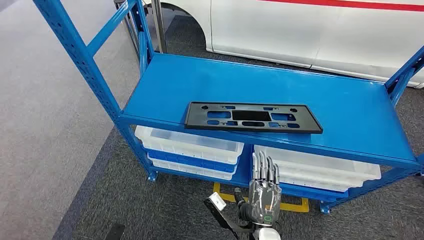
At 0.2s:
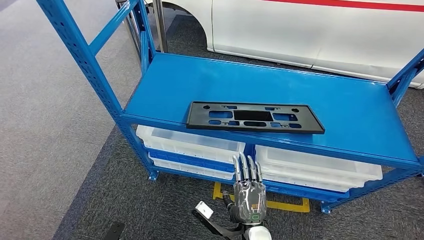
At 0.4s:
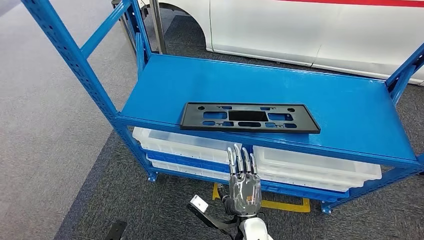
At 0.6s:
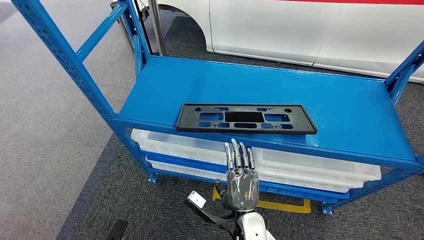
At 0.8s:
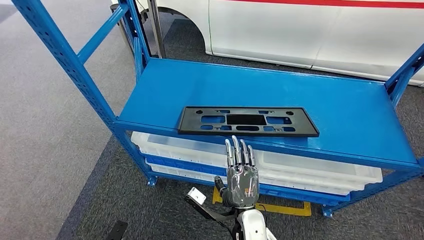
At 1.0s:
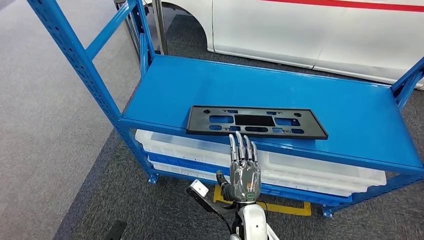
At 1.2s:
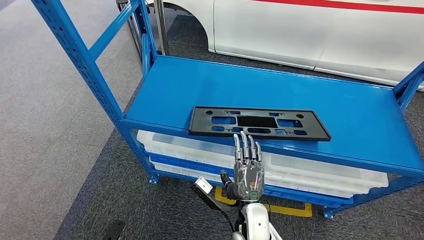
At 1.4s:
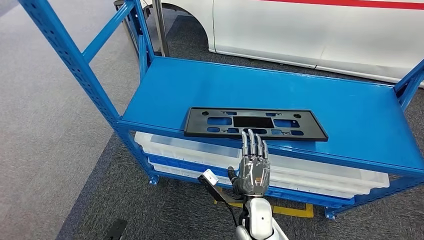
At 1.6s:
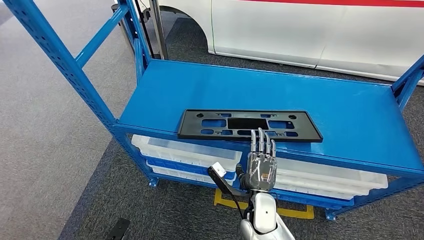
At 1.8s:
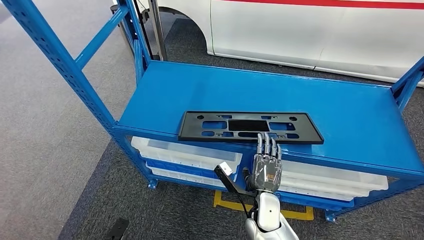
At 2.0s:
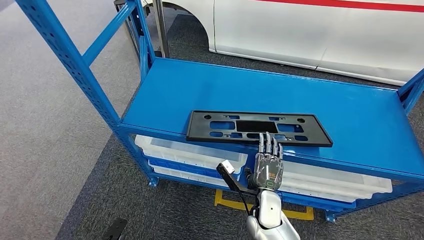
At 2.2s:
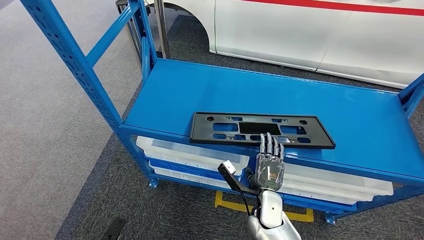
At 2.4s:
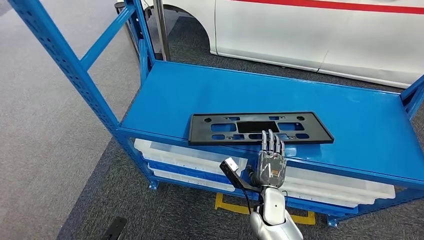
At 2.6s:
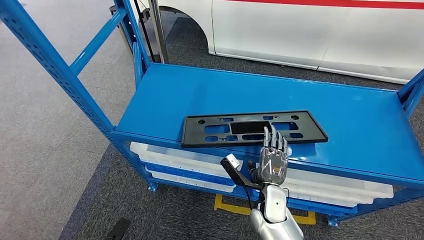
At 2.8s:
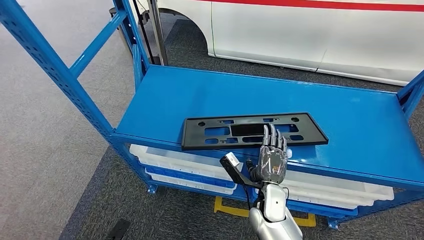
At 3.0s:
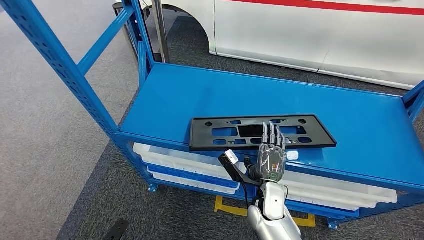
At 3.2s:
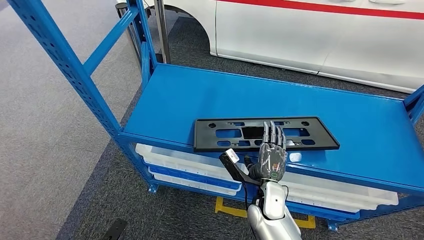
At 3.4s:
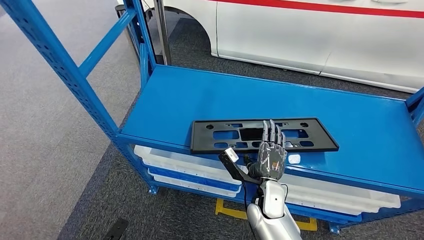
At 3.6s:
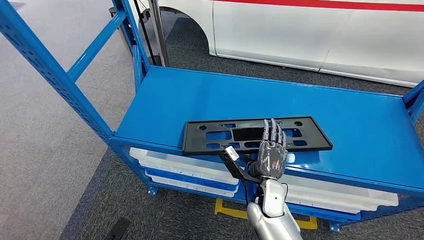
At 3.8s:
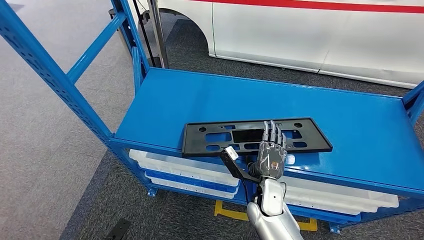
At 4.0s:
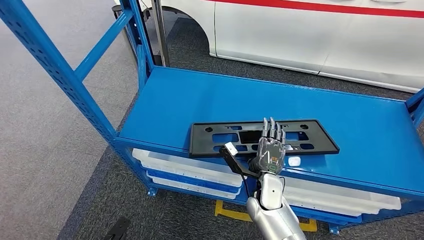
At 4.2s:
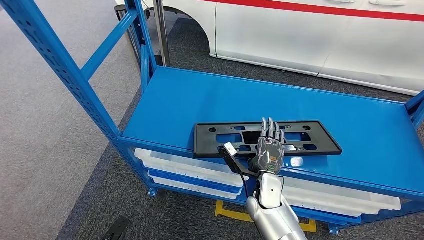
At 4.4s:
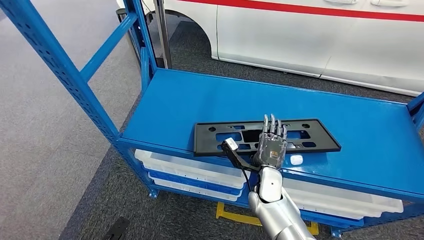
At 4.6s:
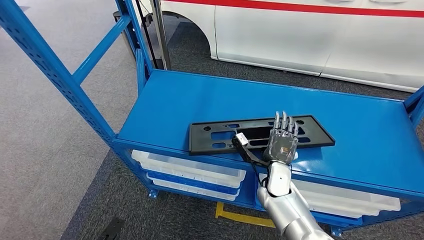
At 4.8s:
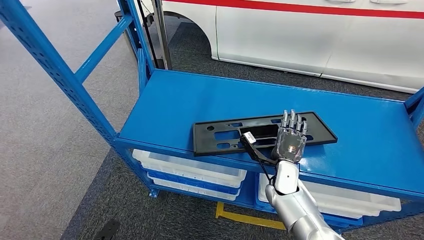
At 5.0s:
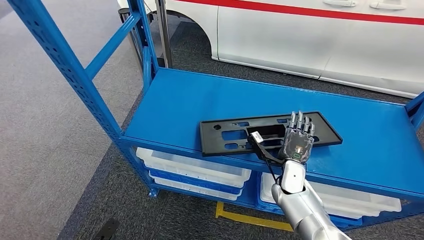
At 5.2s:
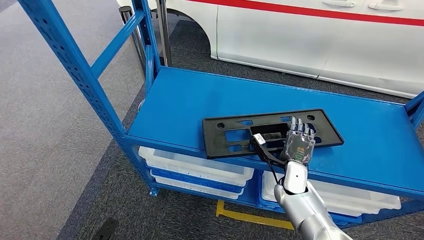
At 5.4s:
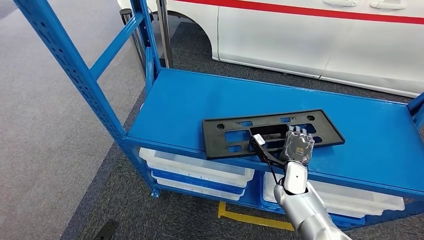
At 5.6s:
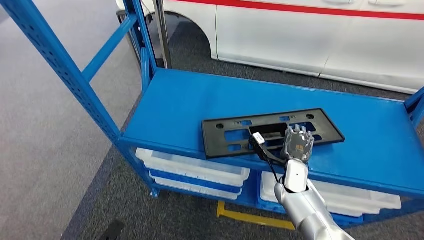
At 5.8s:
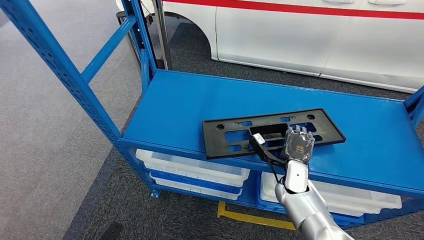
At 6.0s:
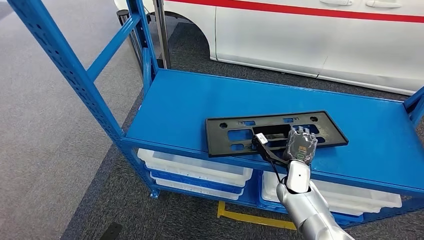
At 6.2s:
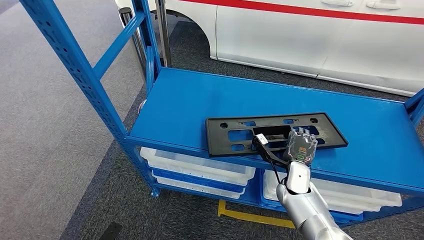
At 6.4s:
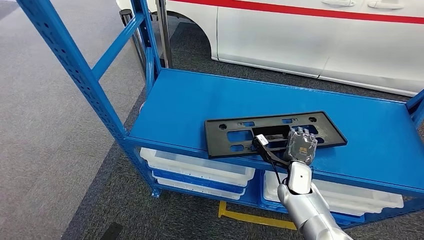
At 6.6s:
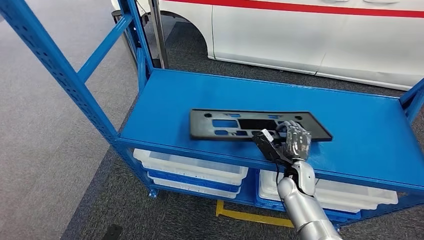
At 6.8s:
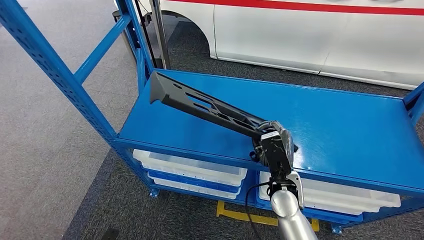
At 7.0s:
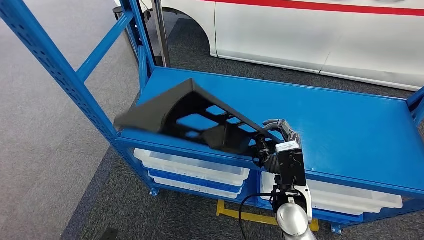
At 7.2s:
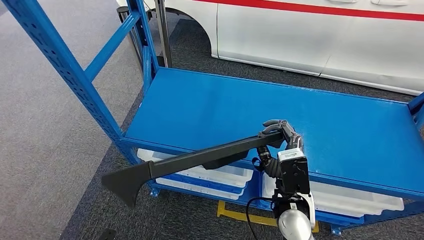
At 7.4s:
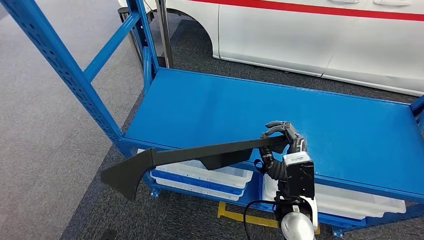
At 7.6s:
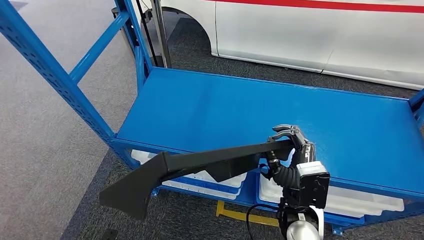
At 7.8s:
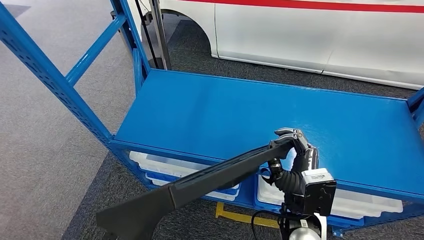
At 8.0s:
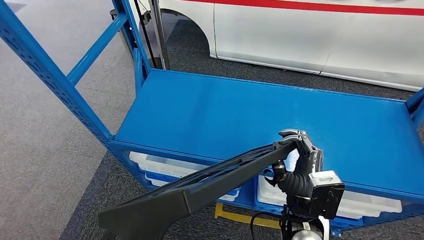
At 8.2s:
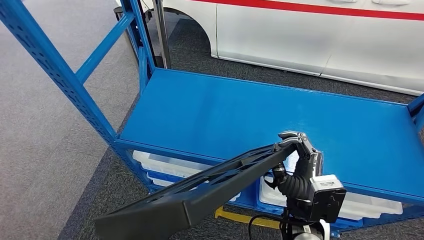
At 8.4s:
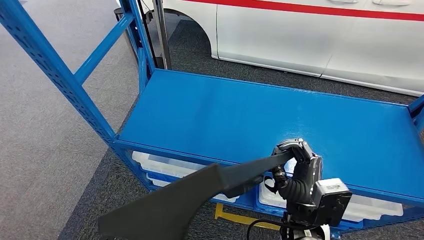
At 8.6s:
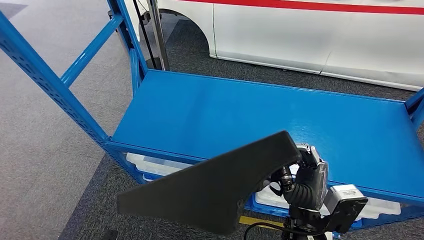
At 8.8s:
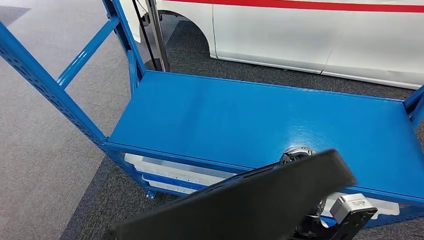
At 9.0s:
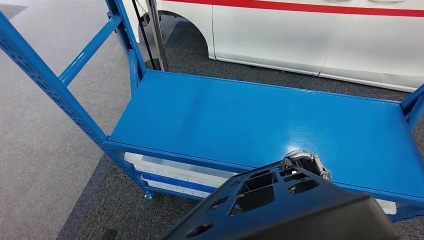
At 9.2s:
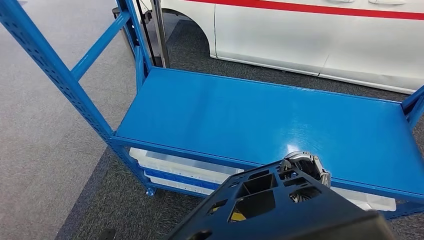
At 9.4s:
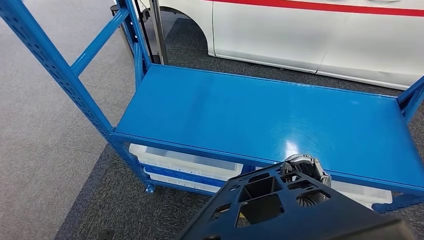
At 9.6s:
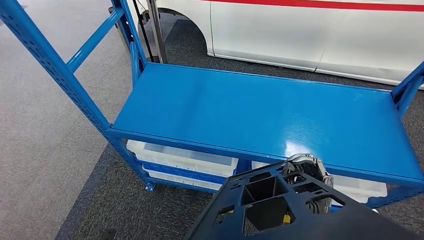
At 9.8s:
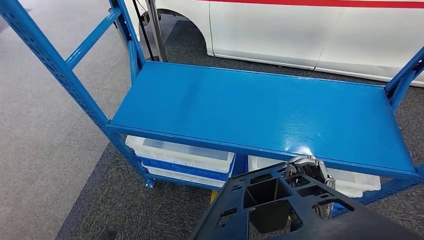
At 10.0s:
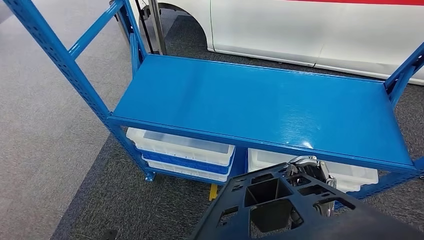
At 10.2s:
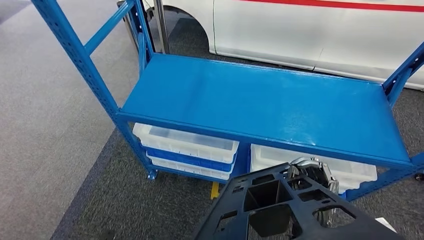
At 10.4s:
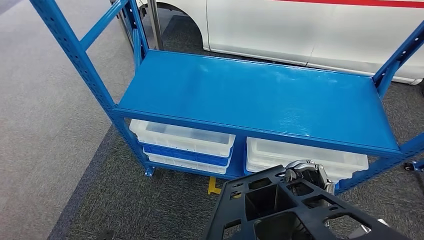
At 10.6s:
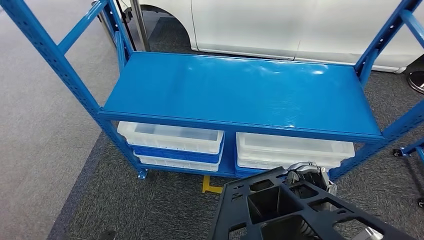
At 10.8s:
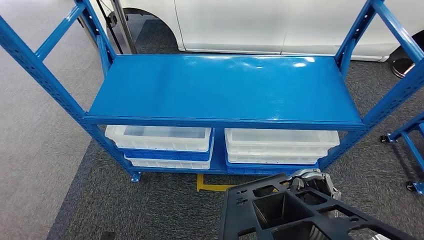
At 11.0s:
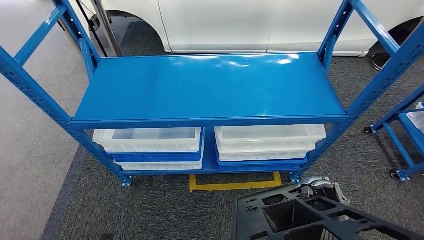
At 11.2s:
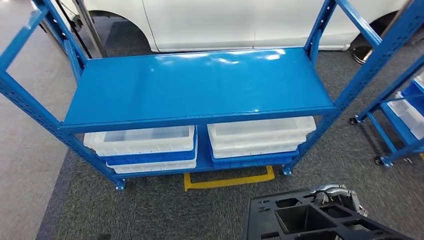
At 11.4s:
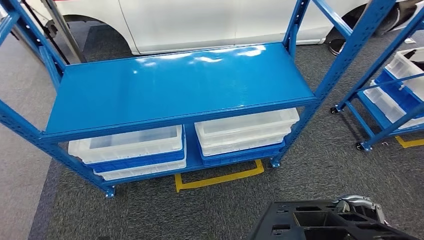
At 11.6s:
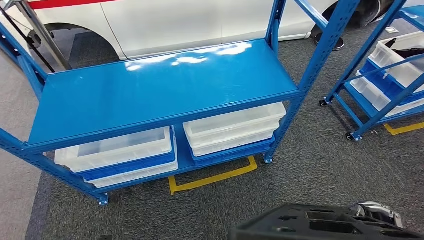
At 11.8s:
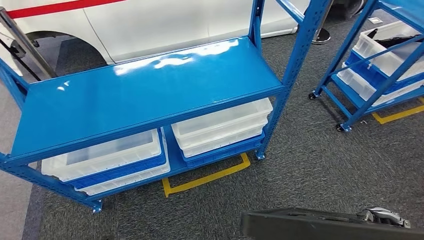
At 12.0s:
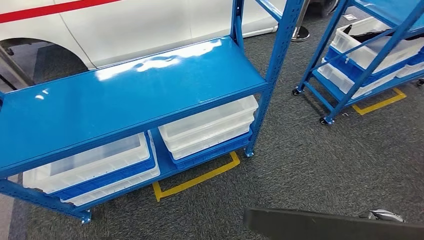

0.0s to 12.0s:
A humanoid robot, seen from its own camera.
Step, 0.0s to 8.0s: Pick up the large material from the shelf.

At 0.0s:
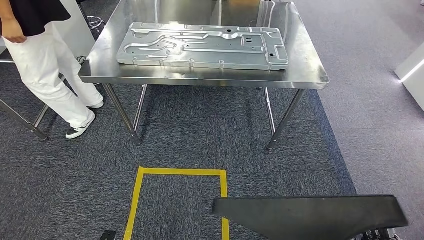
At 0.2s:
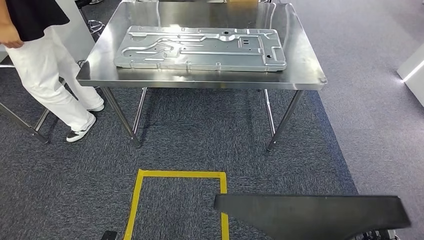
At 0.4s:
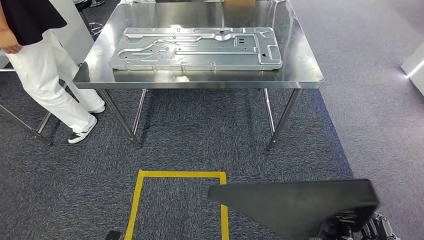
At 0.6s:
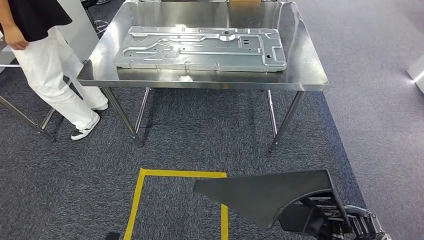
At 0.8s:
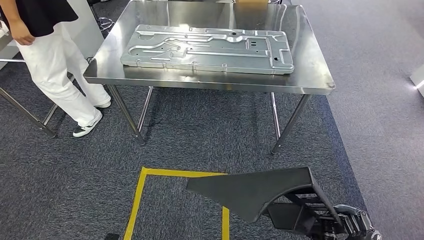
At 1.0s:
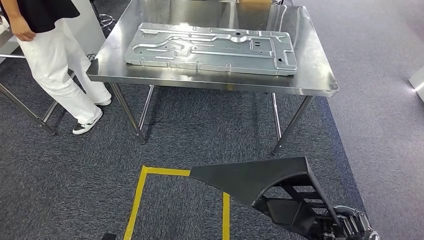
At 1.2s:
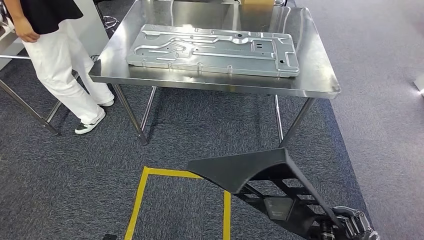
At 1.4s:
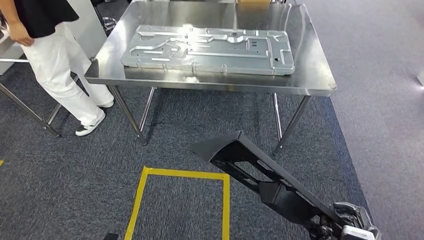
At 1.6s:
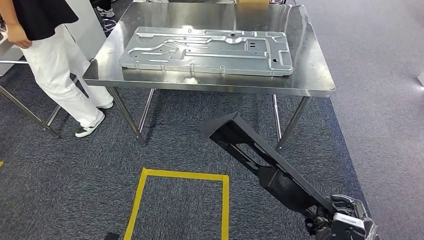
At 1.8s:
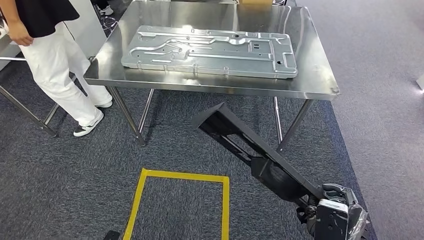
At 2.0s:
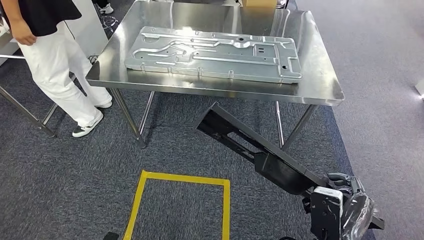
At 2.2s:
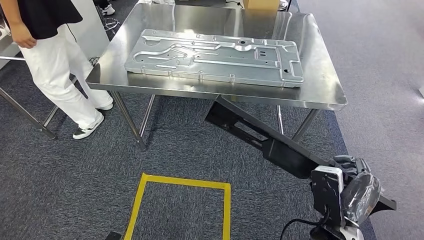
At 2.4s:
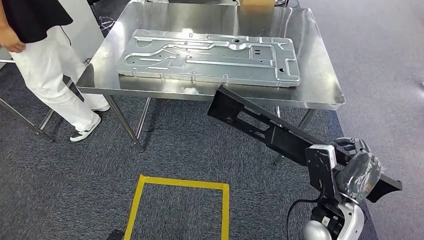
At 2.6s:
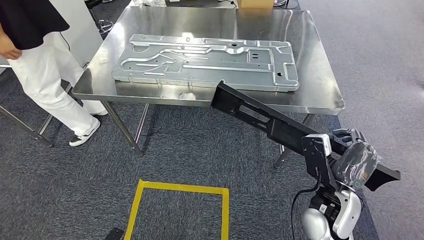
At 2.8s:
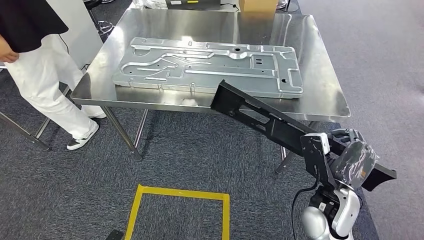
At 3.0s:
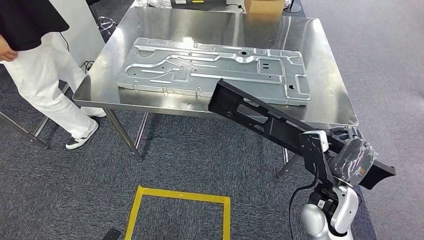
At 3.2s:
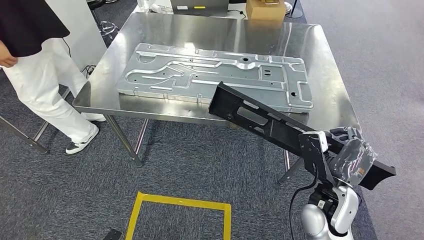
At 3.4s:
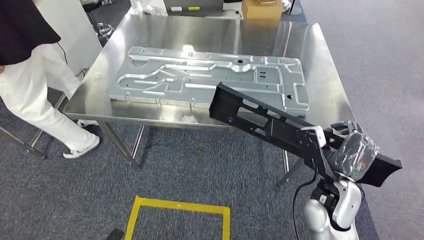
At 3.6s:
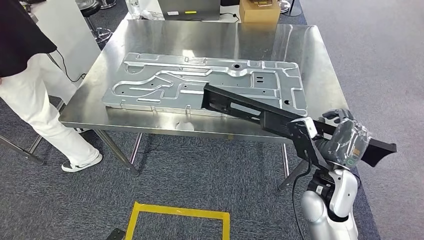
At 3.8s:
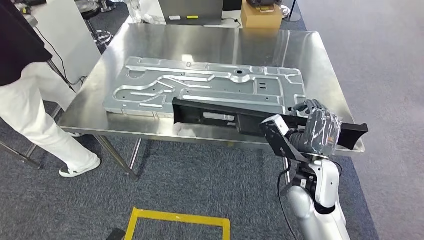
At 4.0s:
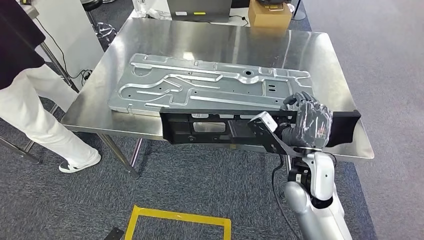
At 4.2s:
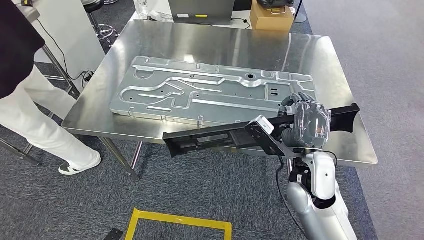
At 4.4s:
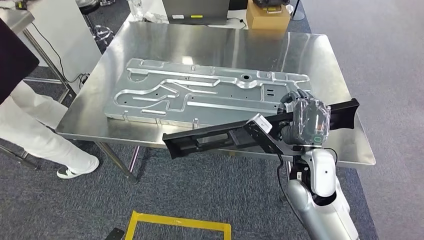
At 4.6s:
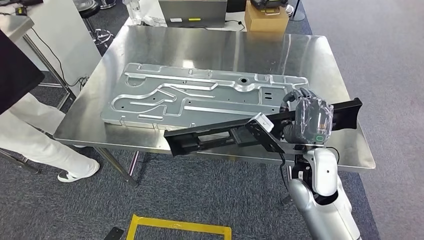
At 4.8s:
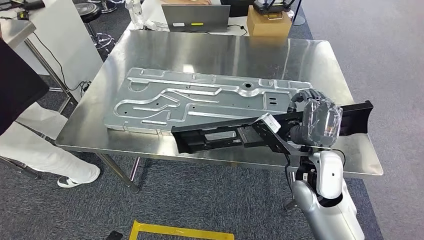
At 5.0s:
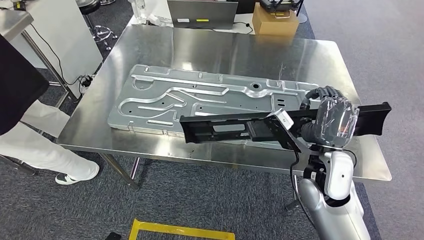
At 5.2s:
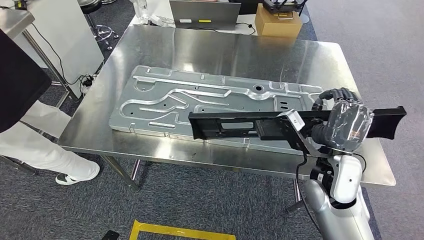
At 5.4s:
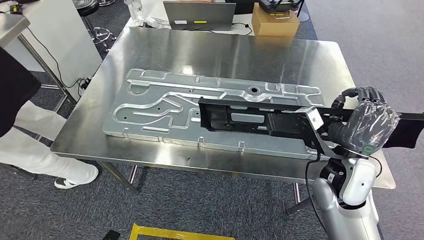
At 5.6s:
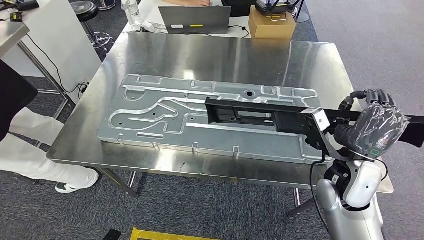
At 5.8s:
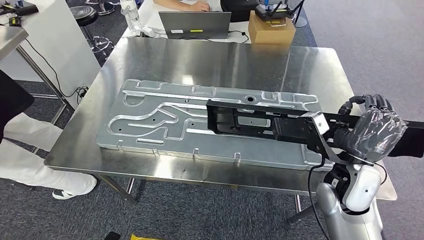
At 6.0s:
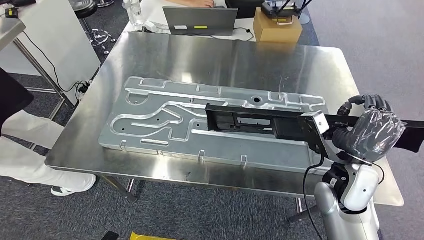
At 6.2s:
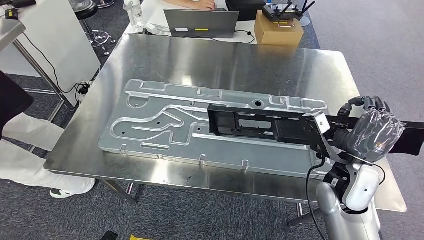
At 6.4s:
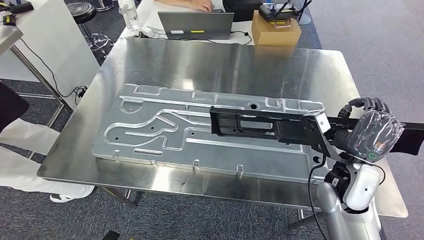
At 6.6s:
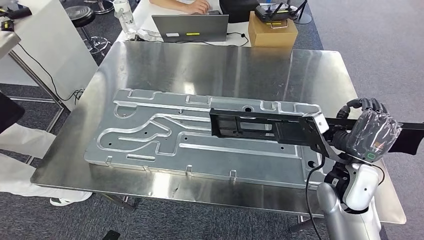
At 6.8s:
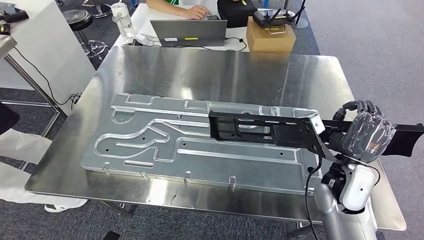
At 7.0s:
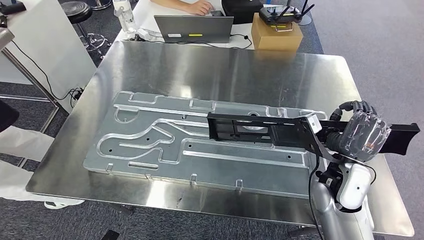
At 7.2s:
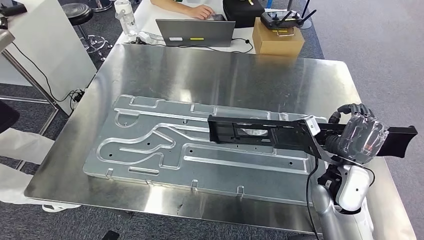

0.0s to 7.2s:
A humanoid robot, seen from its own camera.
Step, 0.0s to 6.4s: Move the large material to the workbench.
